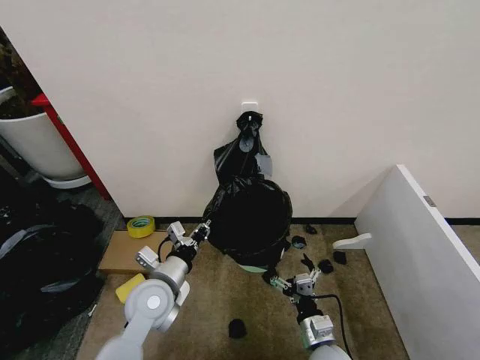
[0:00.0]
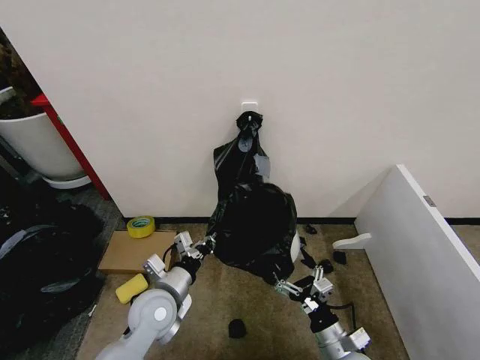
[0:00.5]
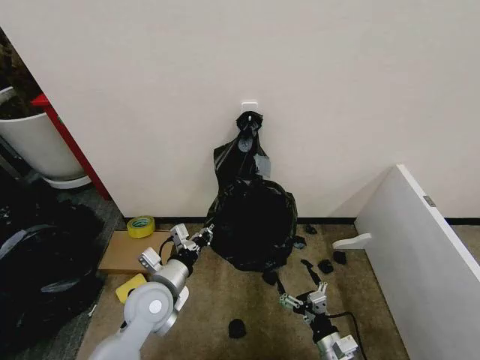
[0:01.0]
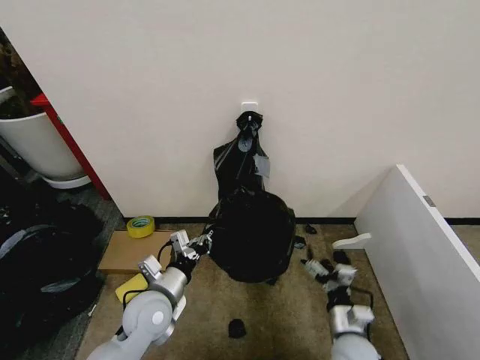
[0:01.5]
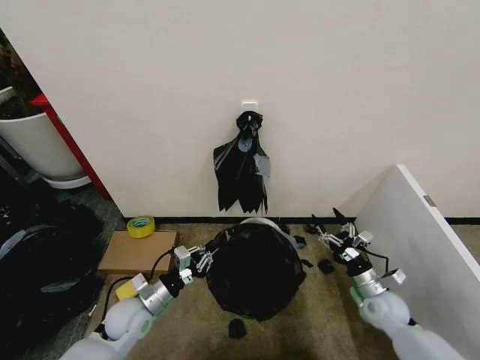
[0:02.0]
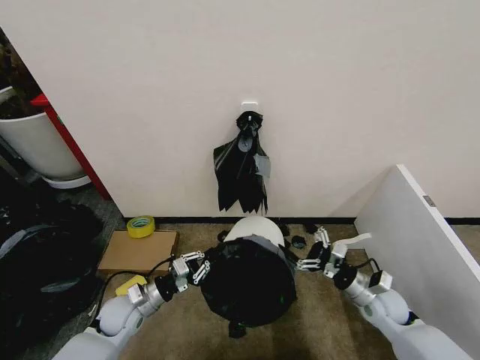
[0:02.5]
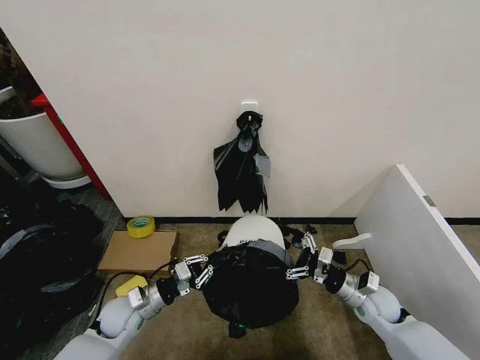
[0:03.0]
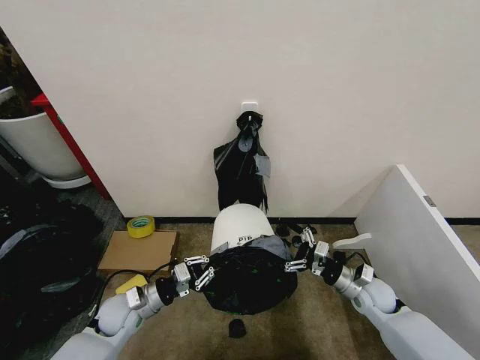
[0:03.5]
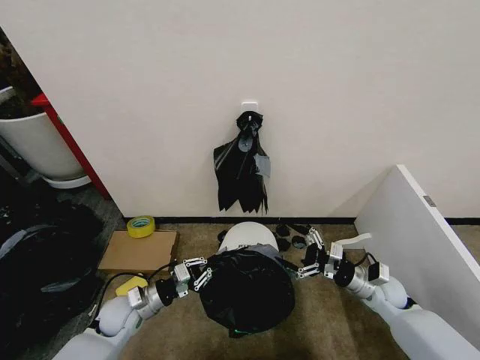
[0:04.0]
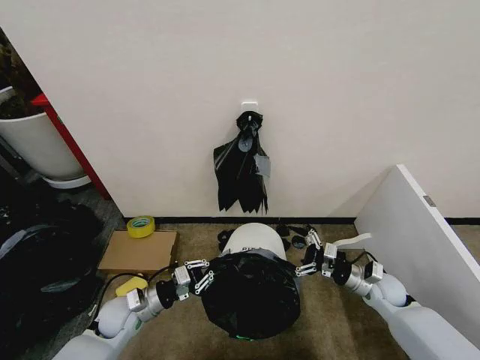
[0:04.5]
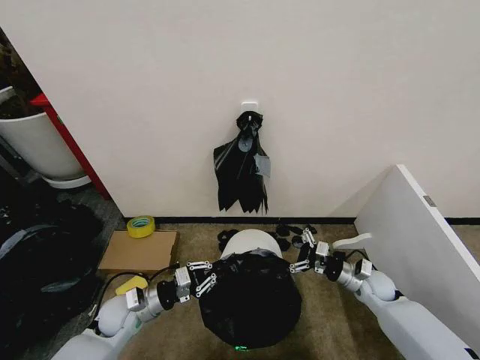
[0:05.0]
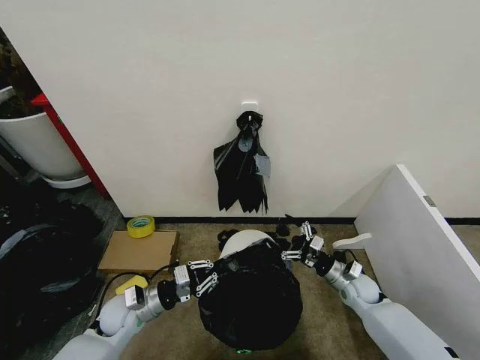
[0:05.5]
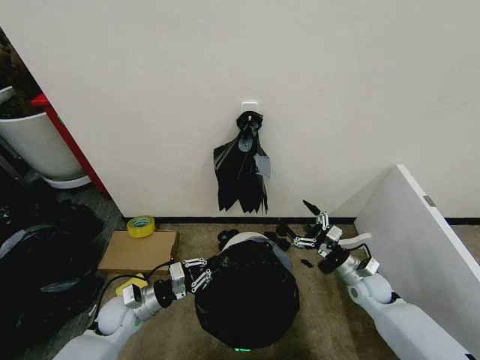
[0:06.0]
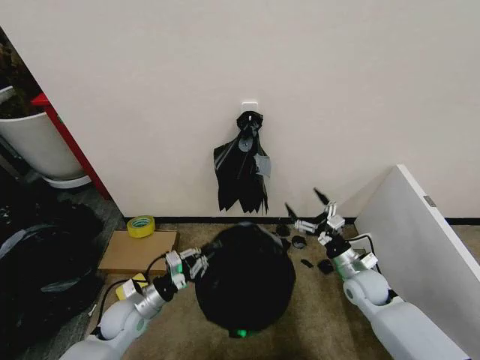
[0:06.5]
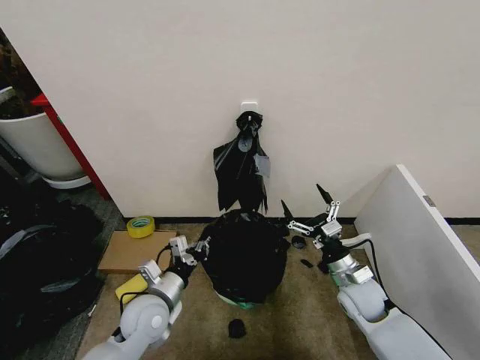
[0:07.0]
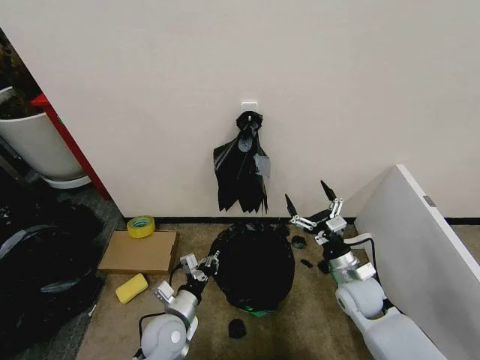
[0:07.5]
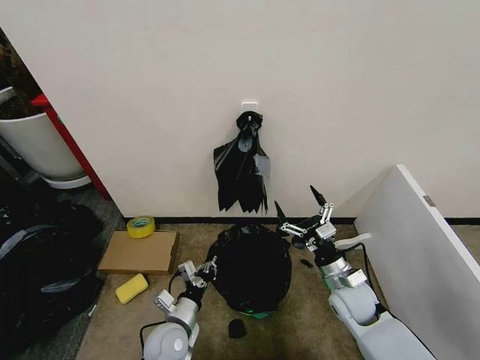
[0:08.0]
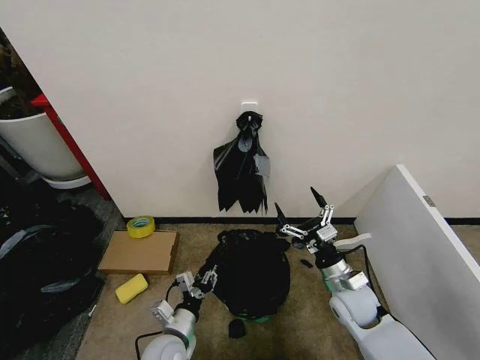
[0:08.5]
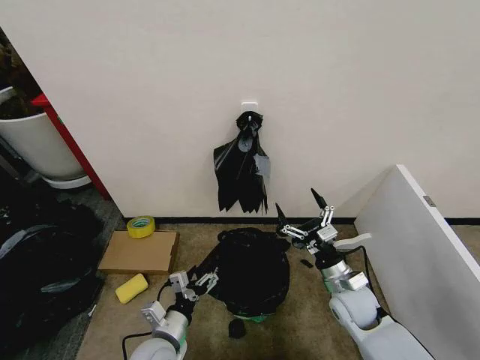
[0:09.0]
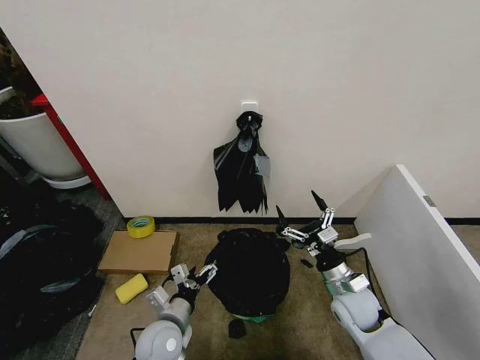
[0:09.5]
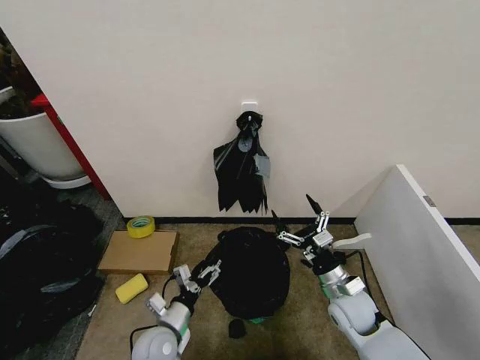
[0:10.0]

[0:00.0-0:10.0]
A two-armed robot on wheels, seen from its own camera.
Task of the whole recording: Place the garbage bag over the trash bin.
0:00.0 to 0:02.0: The right gripper moves to the right and forward, approximately 20 cm, while the left gripper heads downward and to the left, covering about 10 cm.
0:06.0 to 0:08.0: The right gripper shifts roughly 10 cm to the left and upward, while the left gripper shifts some 15 cm to the right and backward.
0:08.0 to 0:10.0: The left gripper opens its fingers.

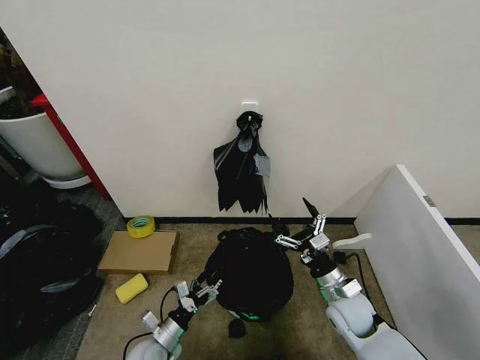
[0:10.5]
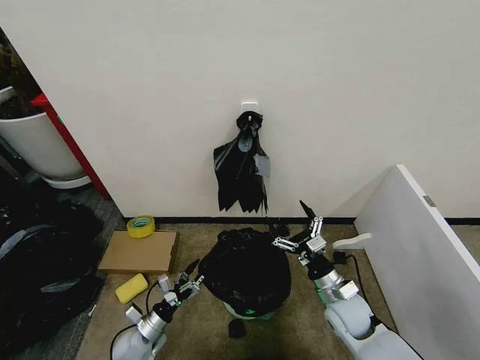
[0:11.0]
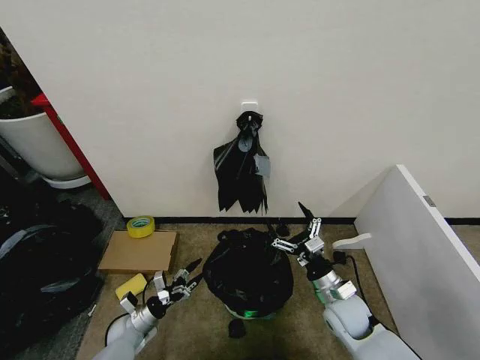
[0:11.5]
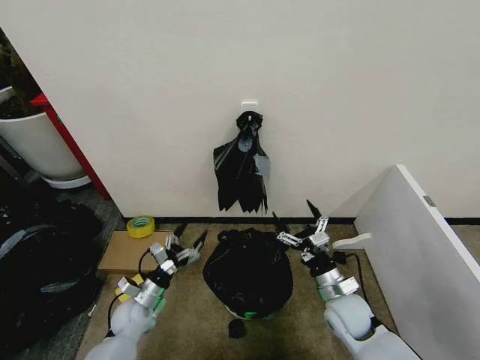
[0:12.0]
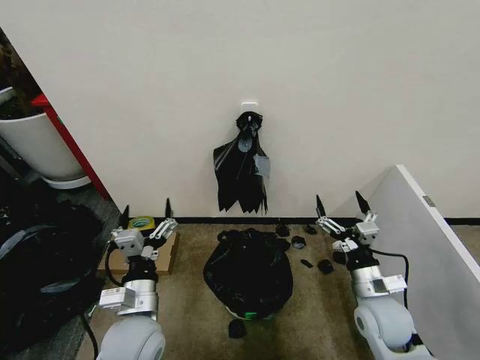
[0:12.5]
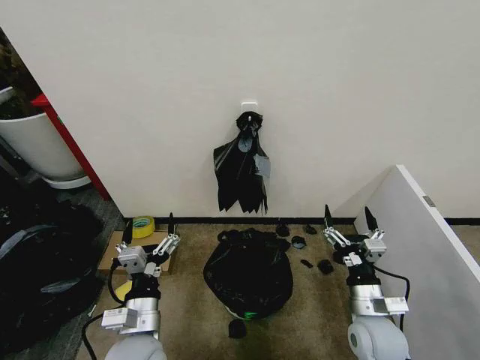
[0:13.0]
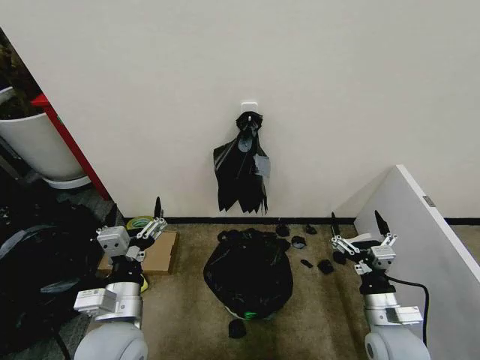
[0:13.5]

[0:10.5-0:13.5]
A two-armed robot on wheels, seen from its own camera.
Task of the whole recording: Place the garbage bag over the trash bin.
0:10.5 to 0:12.0: The left gripper travels forward and to the left by approximately 10 cm.
0:12.0 to 0:13.5: The right gripper moves backward and to the right, approximately 10 cm, while the left gripper shifts about 25 cm upward, backward and to the right.
